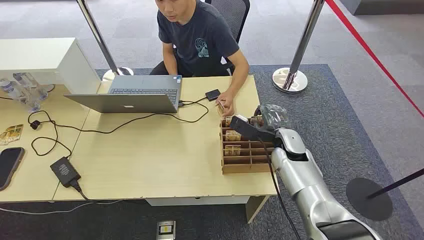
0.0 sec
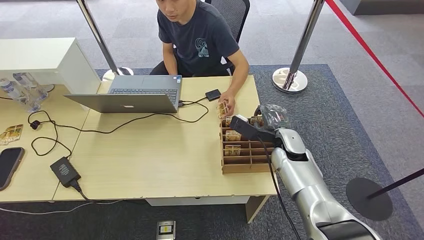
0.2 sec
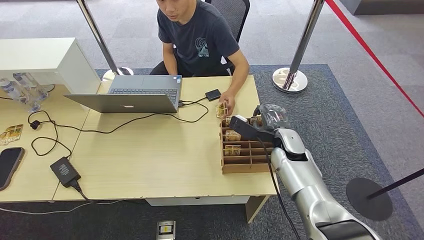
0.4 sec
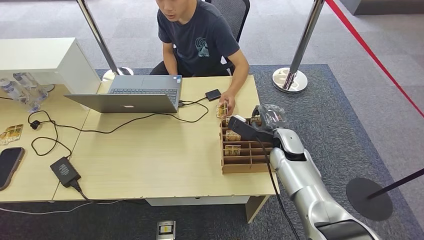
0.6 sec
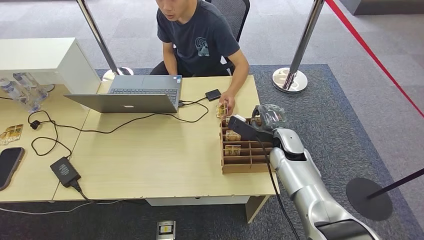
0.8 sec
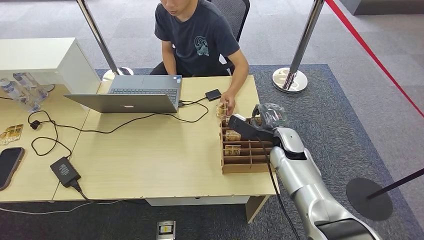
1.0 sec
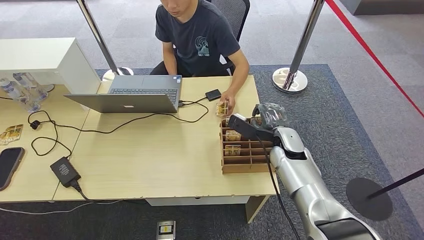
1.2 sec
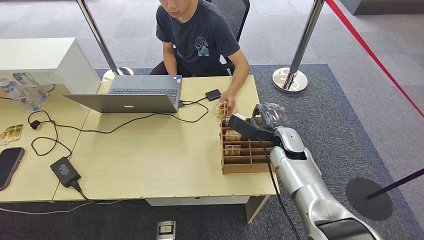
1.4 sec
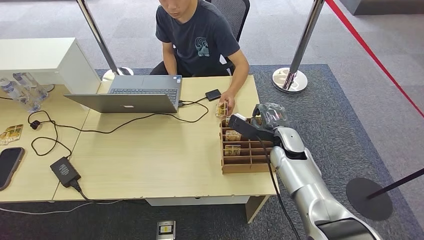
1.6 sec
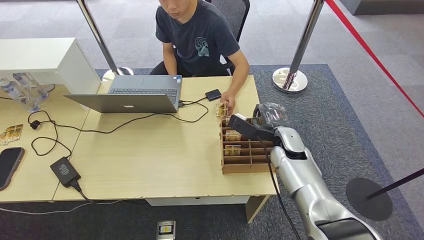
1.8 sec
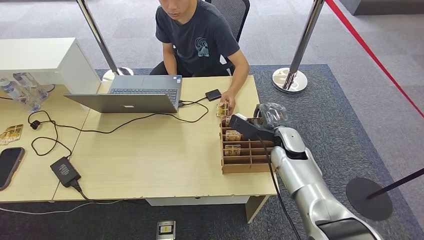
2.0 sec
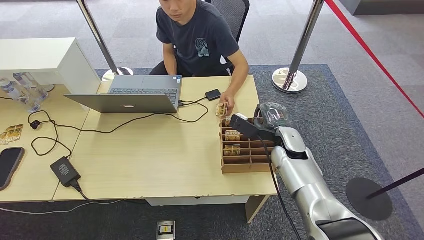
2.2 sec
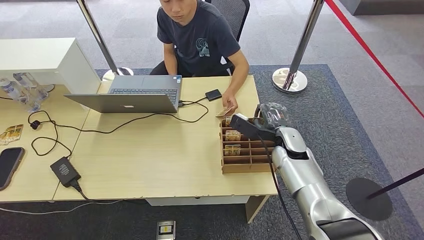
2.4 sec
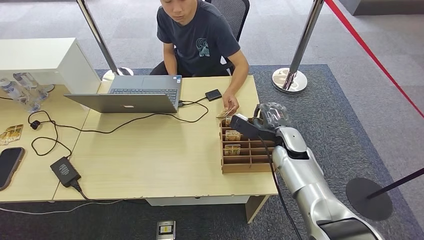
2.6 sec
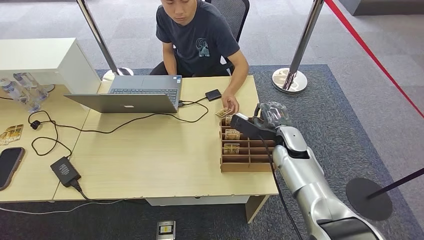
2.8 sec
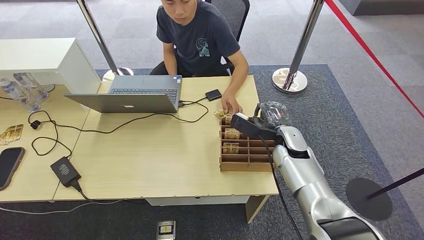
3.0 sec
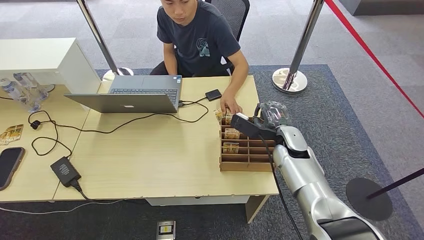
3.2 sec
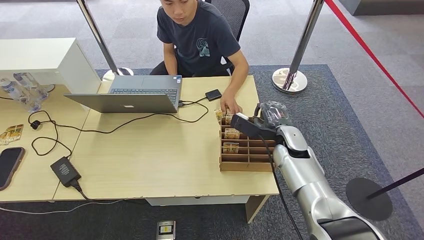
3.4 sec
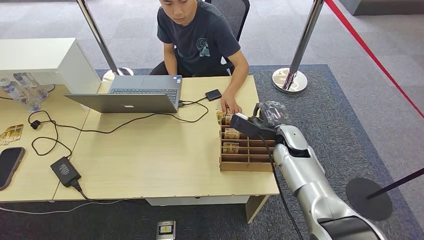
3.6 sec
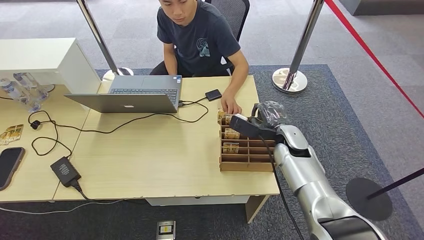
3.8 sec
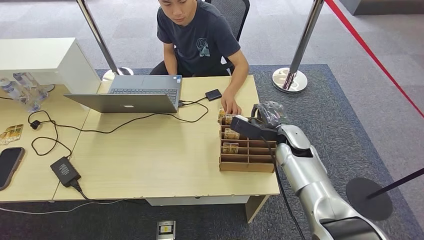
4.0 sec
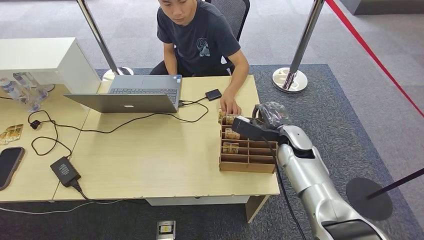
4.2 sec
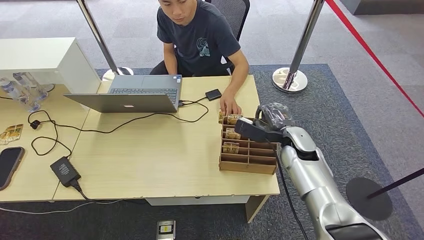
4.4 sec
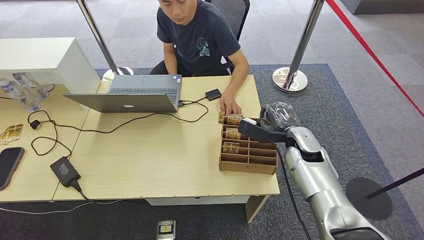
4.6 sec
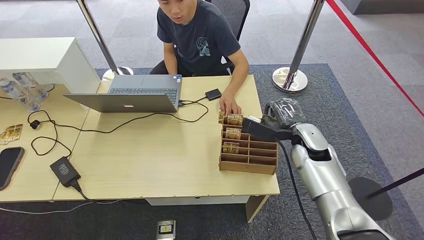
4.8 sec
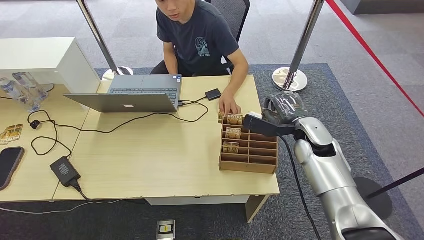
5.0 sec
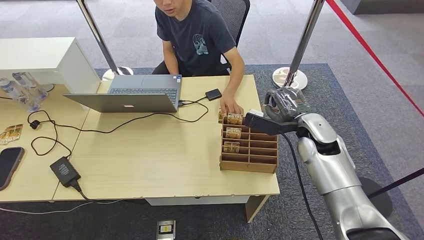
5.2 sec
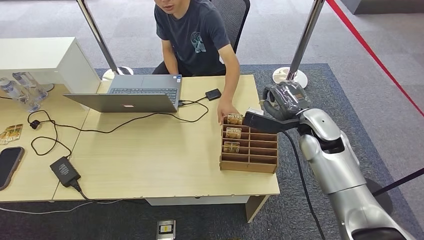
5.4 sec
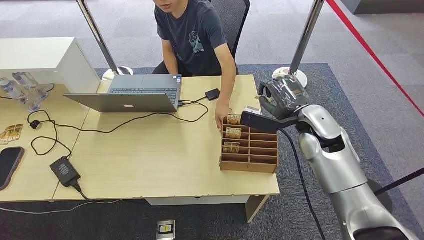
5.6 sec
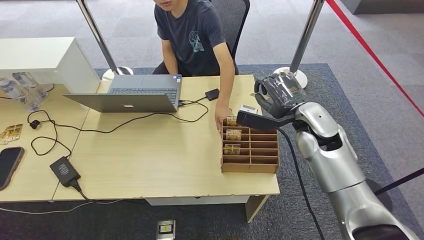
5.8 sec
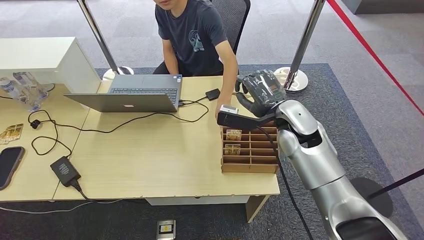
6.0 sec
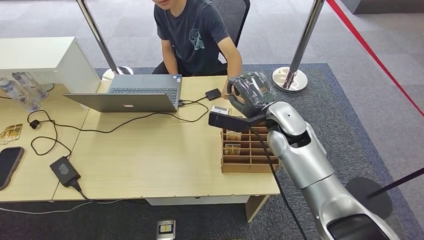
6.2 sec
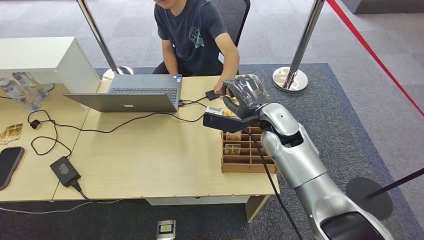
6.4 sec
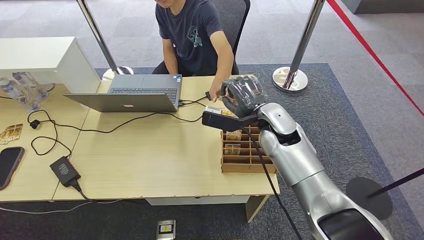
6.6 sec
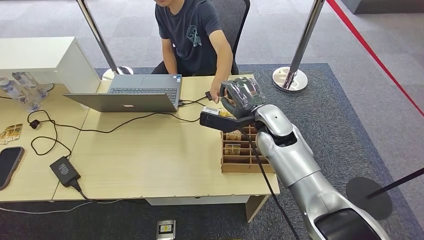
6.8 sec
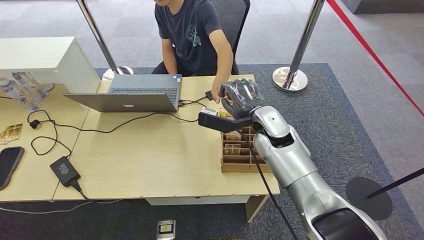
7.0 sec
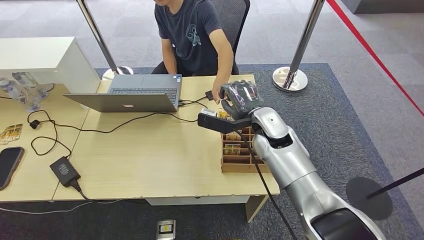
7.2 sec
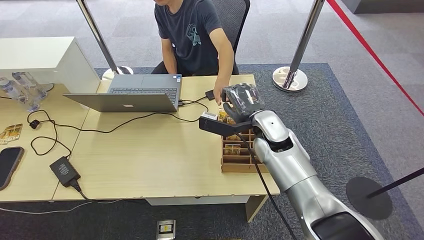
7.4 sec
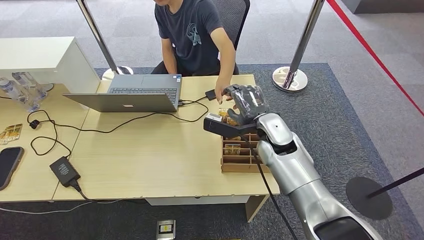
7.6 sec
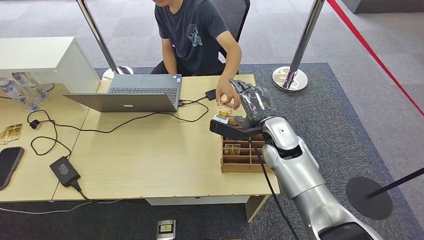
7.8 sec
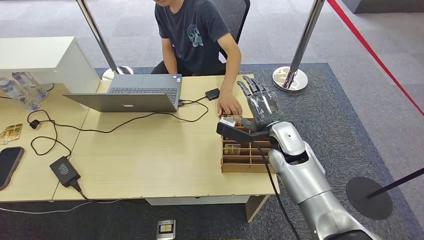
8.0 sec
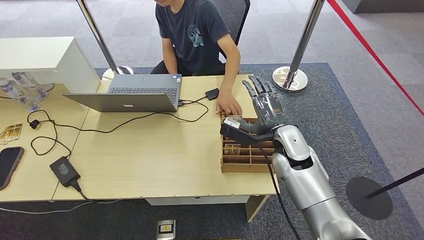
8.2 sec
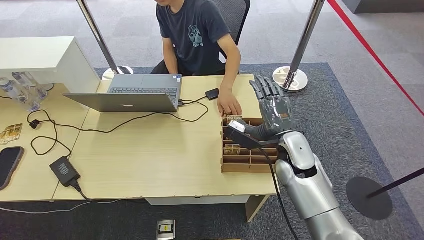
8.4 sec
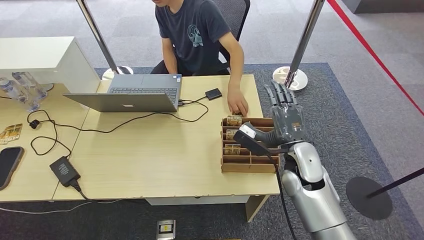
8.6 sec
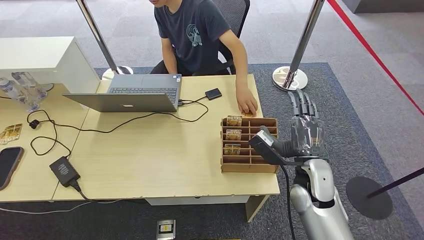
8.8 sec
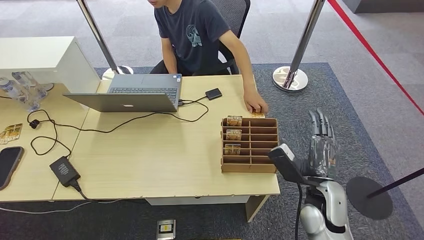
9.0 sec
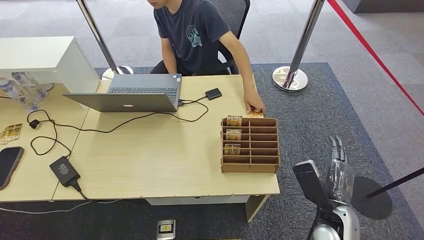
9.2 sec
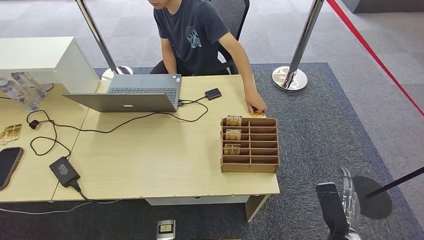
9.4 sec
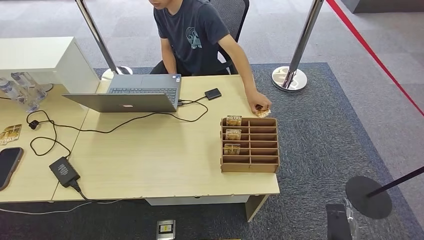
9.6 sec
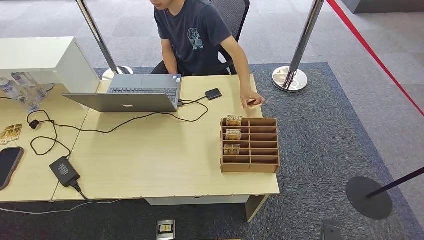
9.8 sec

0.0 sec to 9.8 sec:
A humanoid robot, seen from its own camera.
Step, 0.0 sec to 7.0 sec: Pick up the key card from the card box.
Step, 7.2 sec to 9.8 sec: Hand the key card to the target.
1.4 sec to 2.8 sec: Both hands stay put.
2.8 sec to 4.2 sec: The hands stay close to where they were, moving slightly.
4.2 sec to 5.6 sec: The right hand travels upward by approximately 10 cm.
5.6 sec to 7.0 sec: The right hand moves to the left, approximately 10 cm.
7.0 sec to 8.4 sec: The right hand heads backward, covering approximately 5 cm.
8.4 sec to 9.8 sec: The right hand heads downward, backward and to the right, covering some 35 cm.

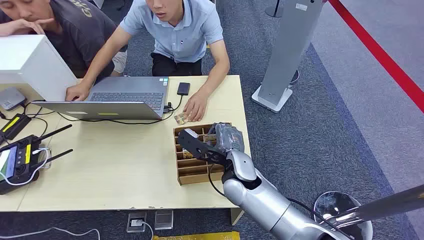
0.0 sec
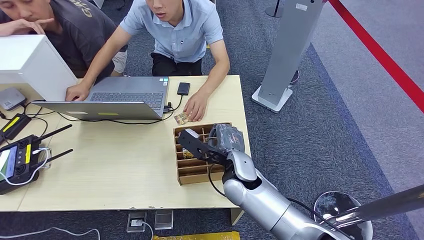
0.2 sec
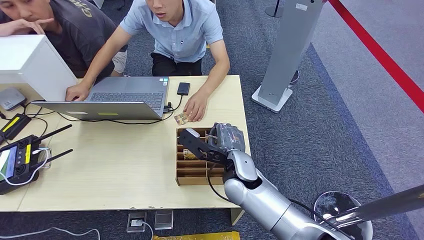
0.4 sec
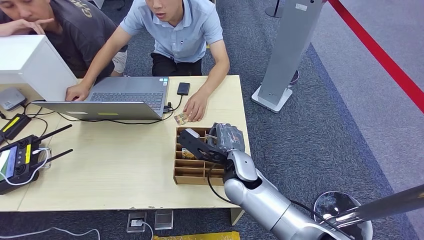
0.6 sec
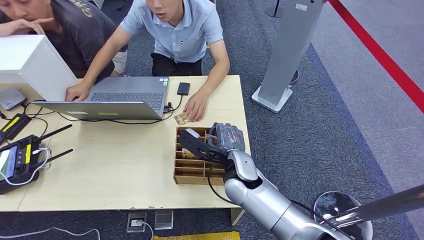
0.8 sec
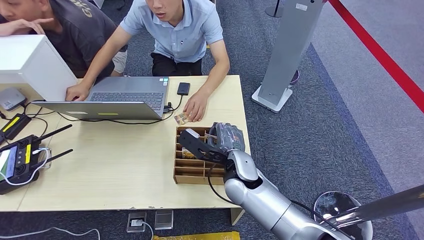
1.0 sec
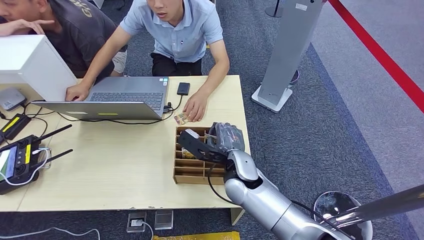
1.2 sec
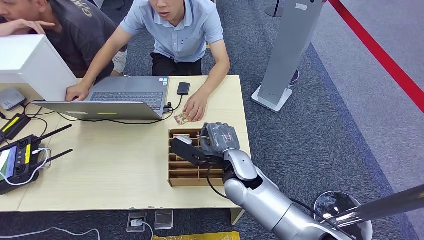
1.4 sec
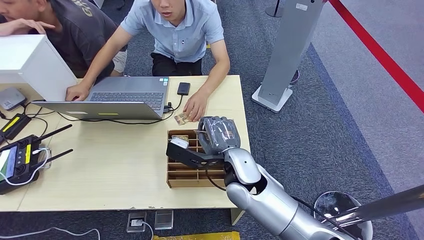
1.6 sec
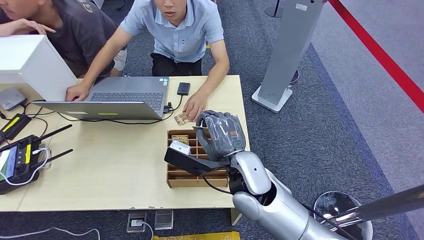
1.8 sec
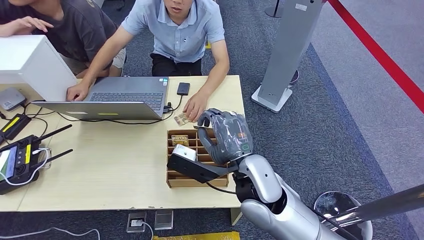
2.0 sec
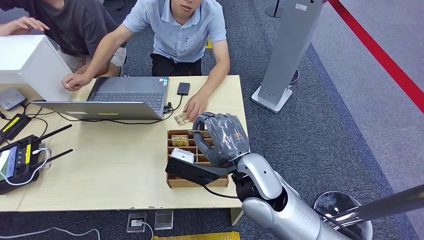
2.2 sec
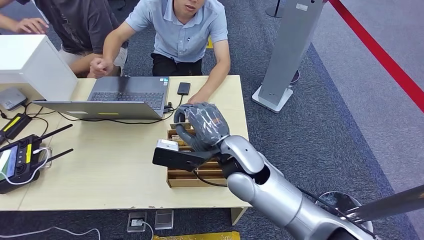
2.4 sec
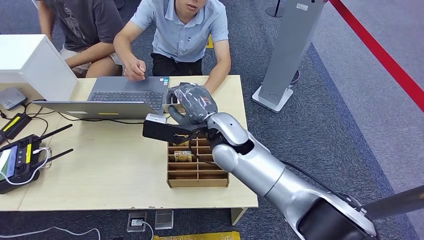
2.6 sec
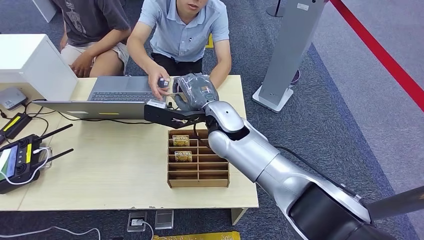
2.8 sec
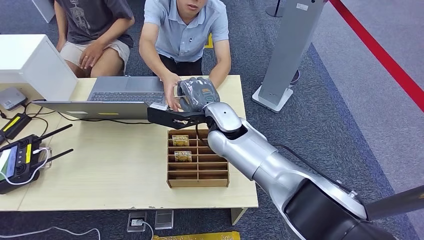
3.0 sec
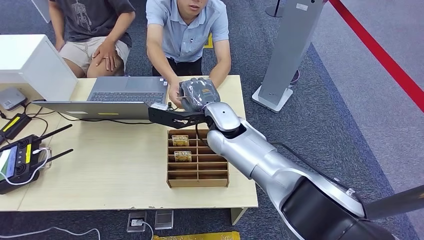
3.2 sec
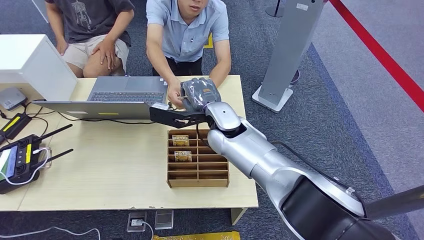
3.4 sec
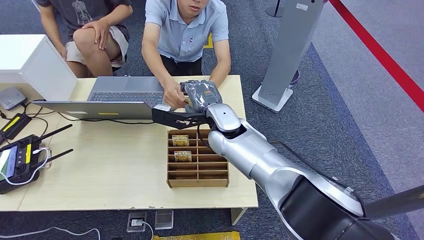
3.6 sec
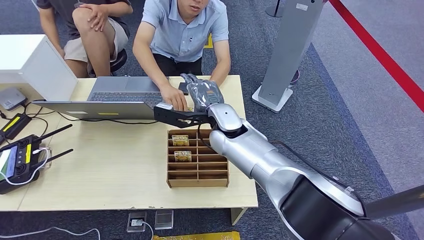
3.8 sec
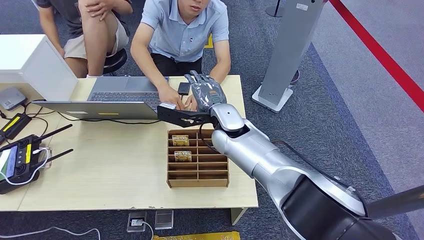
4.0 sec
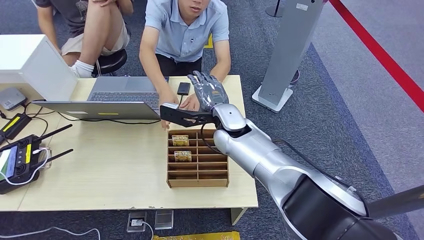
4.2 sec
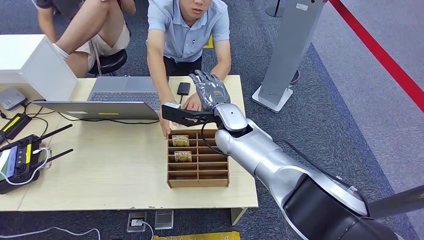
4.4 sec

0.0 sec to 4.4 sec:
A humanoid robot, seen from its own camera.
Step, 0.0 sec to 1.6 sec: Pick up the key card from the card box.
Step, 2.0 sec to 4.4 sec: Hand the key card to the target.
3.0 sec to 4.4 sec: The hands move only a little.

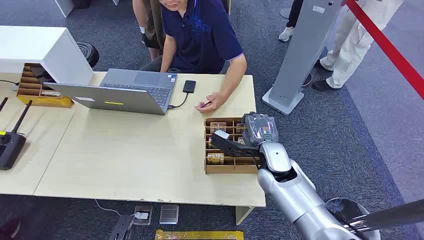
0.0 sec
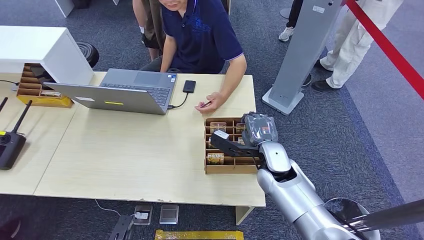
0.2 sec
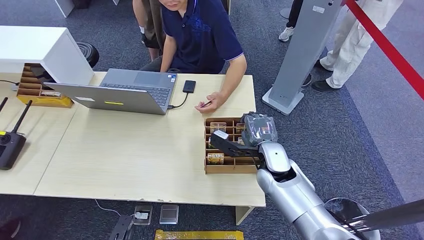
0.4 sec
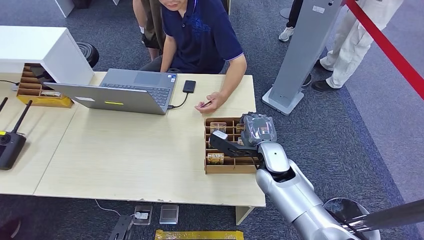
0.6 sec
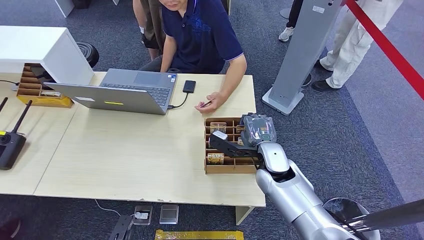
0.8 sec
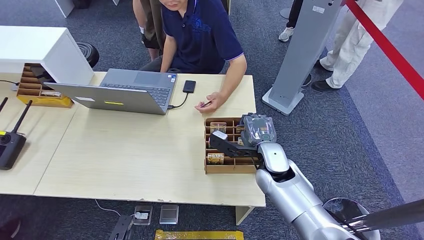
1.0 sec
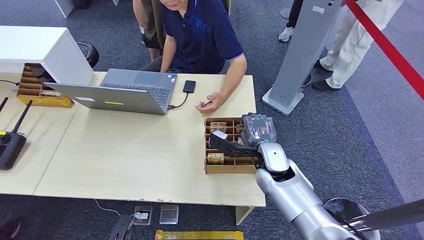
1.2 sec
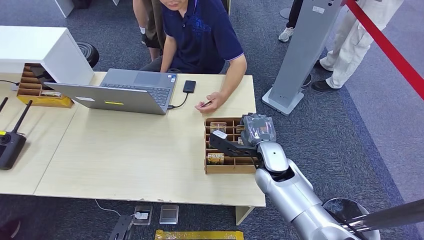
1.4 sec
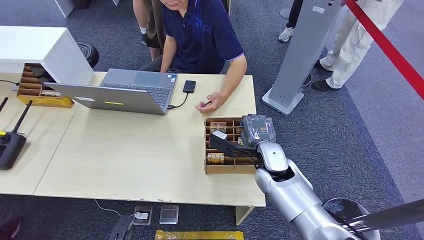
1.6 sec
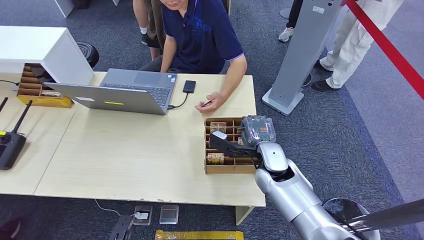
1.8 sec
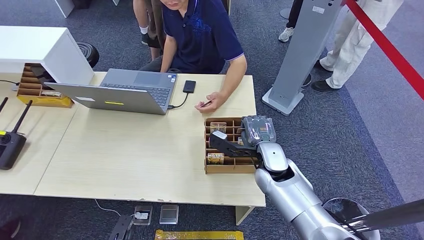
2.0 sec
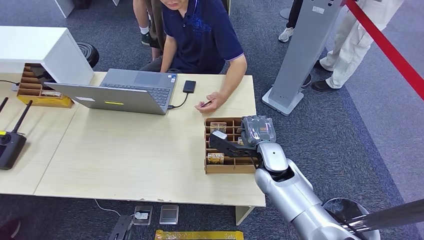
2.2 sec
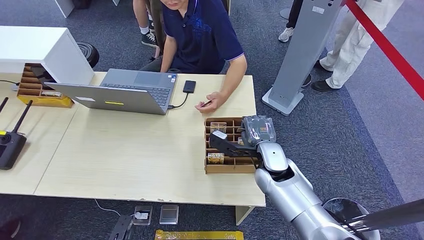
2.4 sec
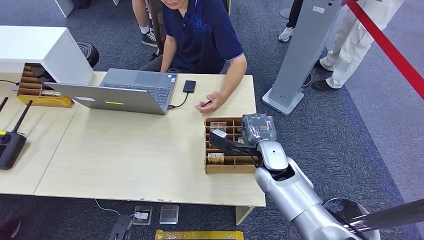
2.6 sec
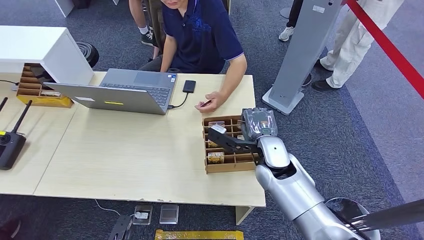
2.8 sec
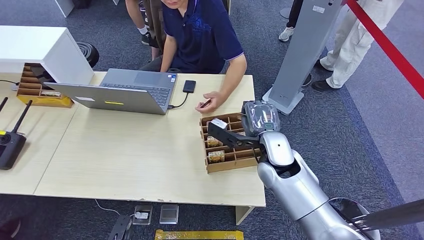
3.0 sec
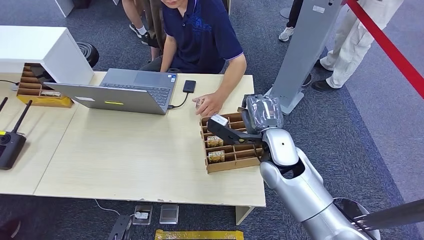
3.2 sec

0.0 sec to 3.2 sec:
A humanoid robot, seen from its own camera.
Step, 0.0 sec to 2.8 sec: Pick up the key card from the card box.
1.6 sec to 3.2 sec: The right hand goes about 5 cm upward.
